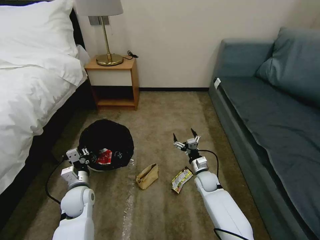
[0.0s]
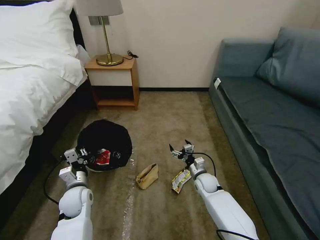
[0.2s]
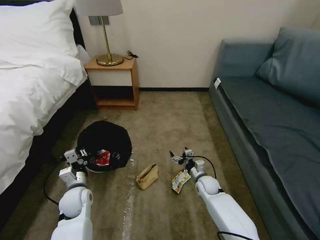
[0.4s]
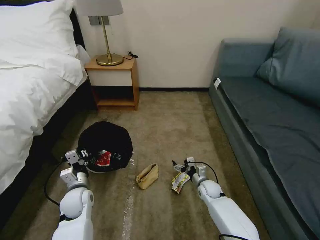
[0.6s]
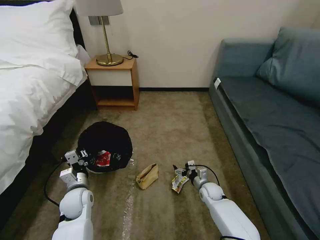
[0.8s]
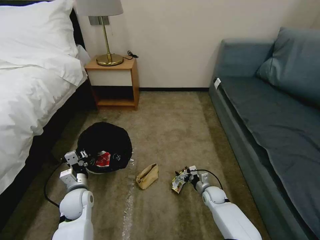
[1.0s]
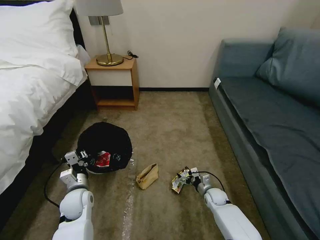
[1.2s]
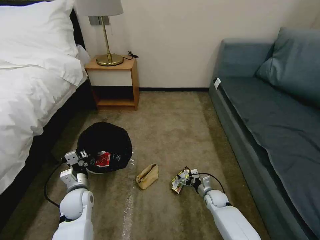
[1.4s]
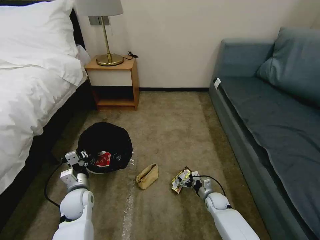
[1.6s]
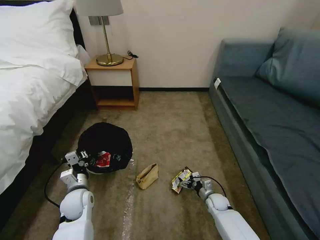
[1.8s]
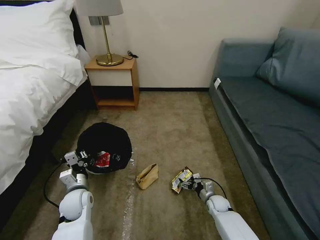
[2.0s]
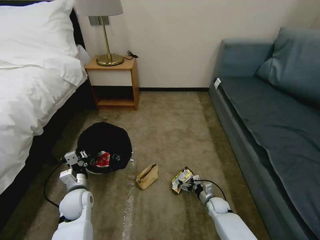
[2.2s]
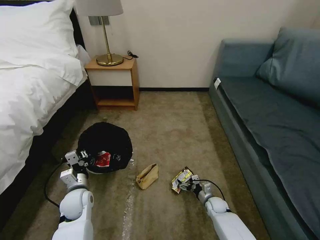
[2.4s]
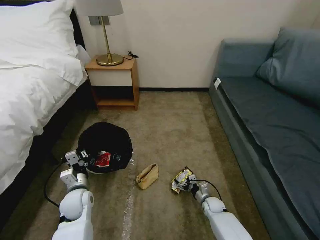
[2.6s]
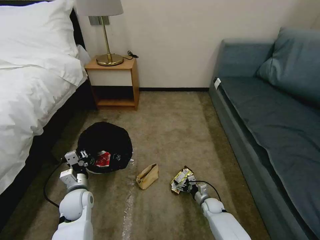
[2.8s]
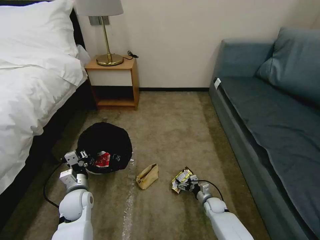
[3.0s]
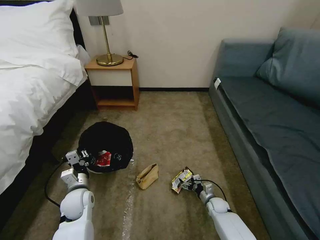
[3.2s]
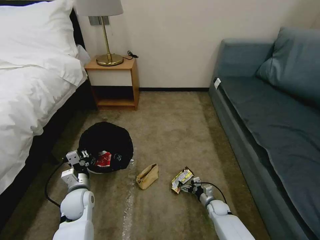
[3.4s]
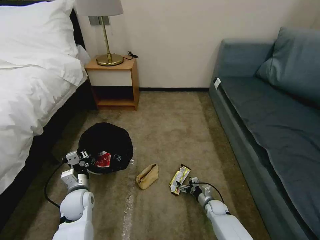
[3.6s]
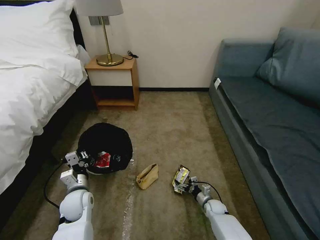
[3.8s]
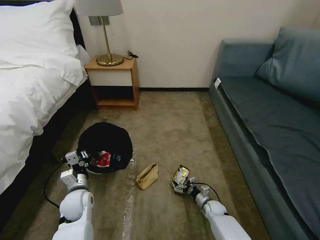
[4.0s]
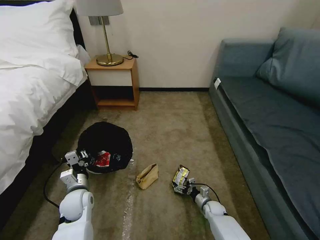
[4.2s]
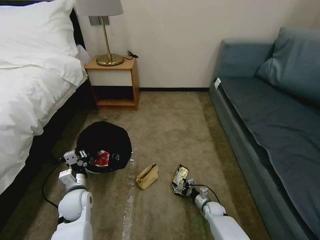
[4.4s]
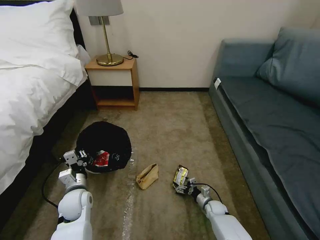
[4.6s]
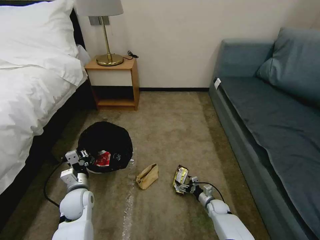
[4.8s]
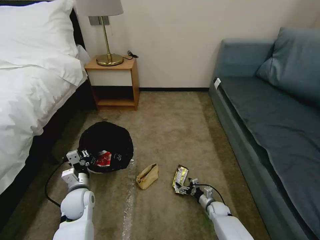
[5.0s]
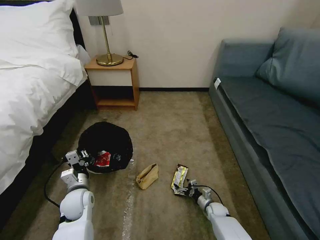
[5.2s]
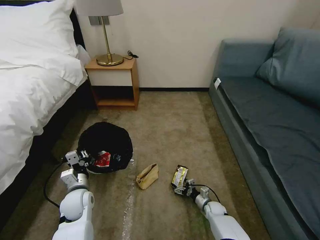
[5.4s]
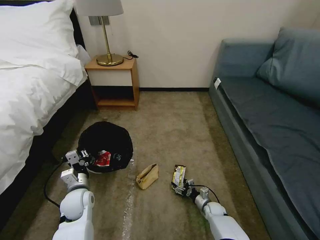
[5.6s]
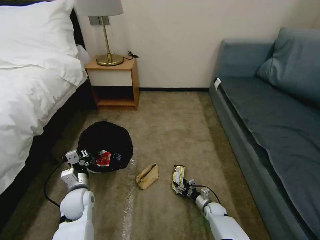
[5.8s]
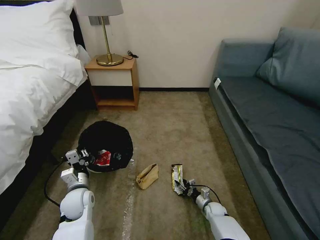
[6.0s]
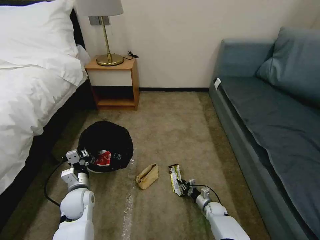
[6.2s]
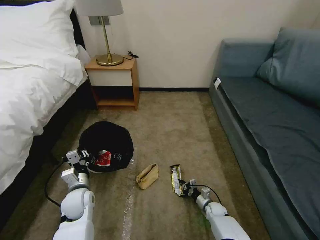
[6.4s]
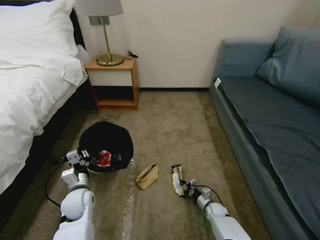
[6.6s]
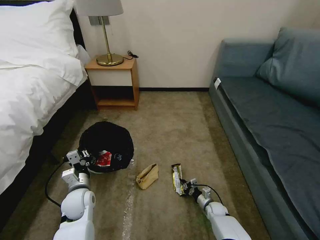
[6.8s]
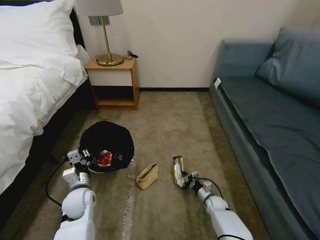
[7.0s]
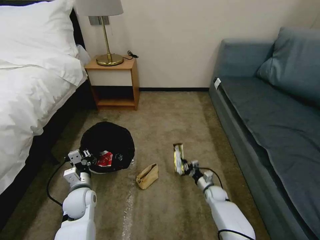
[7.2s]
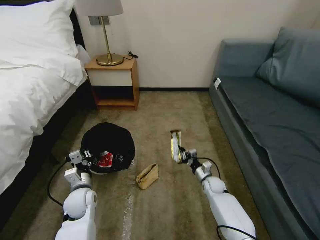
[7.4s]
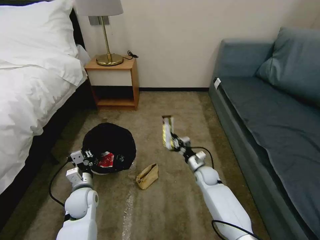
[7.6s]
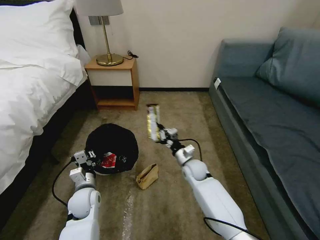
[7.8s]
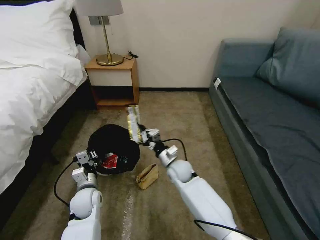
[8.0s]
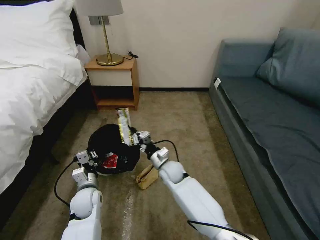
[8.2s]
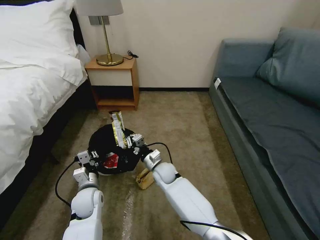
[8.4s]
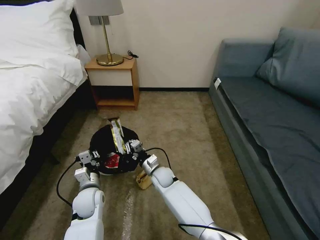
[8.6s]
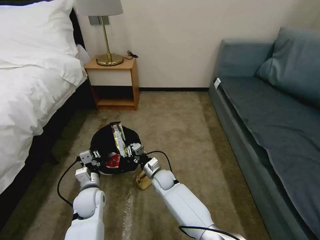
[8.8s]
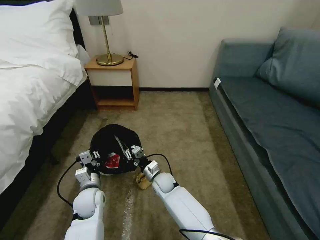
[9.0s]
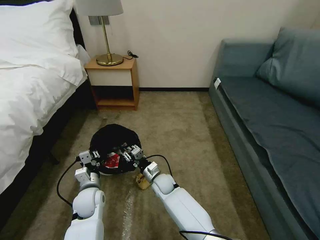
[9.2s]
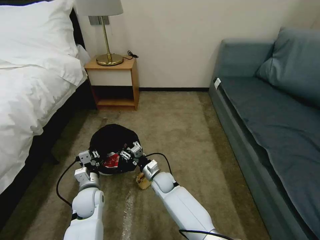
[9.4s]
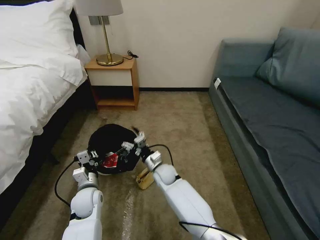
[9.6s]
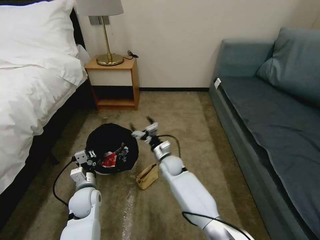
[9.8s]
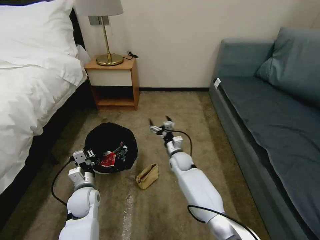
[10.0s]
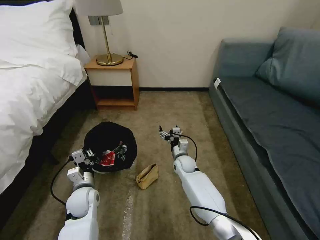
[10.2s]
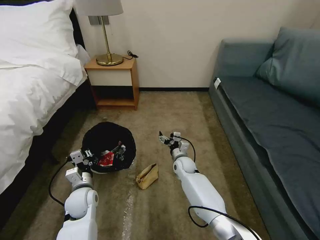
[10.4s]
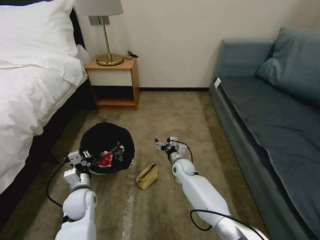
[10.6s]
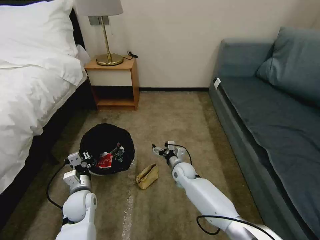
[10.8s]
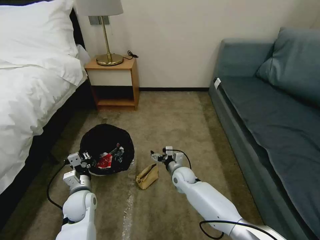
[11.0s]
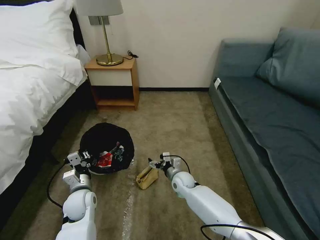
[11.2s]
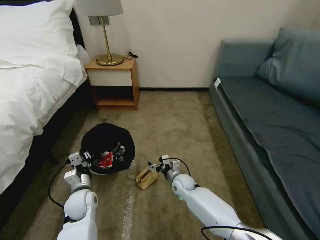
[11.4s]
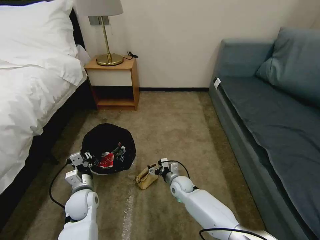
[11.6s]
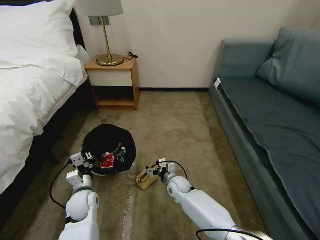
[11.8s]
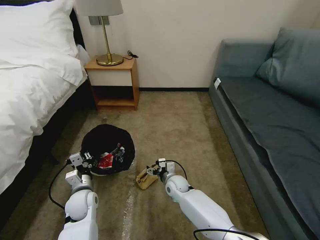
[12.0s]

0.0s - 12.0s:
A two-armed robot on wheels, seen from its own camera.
Task of the whole recording: Pick up the trash bin, then pick up the garbage on the floor and place it into the trash bin.
0.0s - 1.6s: The right gripper travels downward, to the right and backward by some 15 cm.
1.6s - 3.0s: There are only small adjustments of the grippers.
3.0s - 4.4s: There are only small adjustments of the grippers.
4.4s - 6.0s: The right gripper closes its fingers.
6.0s - 7.6s: The right gripper heads upward and forward, covering approximately 20 cm, and closes its fingers.
7.6s - 9.0s: The right gripper moves to the left, roughly 20 cm.
9.0s - 10.4s: The right gripper travels to the right and forward by approximately 10 cm, and opens.
10.4s - 12.0s: The right gripper goes some 10 cm backward.

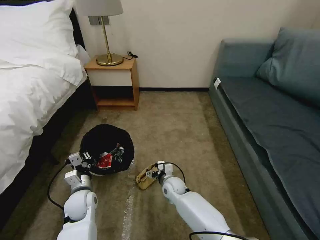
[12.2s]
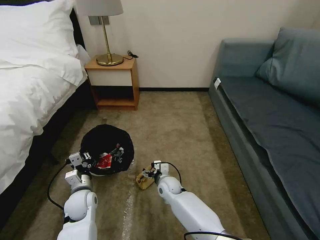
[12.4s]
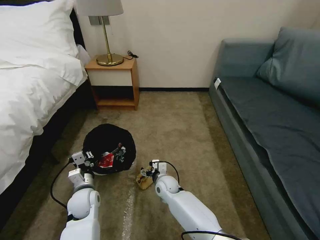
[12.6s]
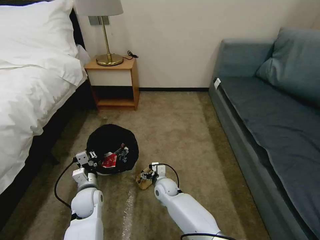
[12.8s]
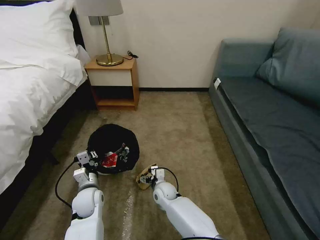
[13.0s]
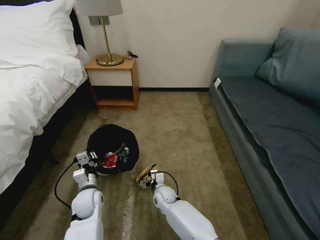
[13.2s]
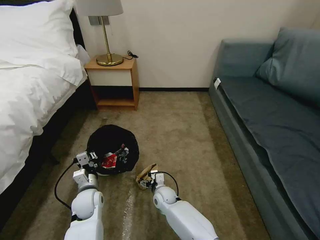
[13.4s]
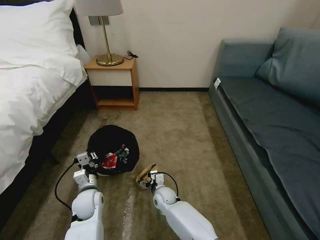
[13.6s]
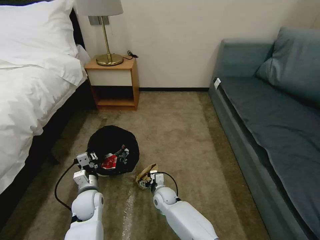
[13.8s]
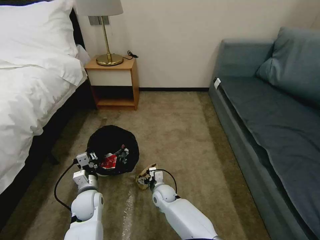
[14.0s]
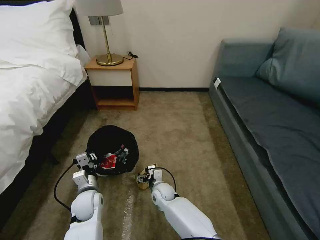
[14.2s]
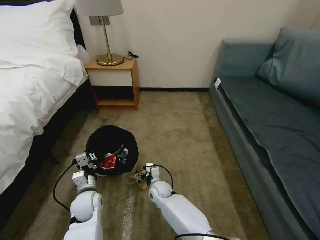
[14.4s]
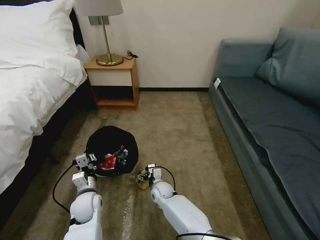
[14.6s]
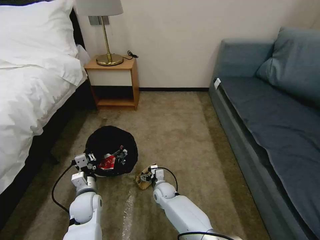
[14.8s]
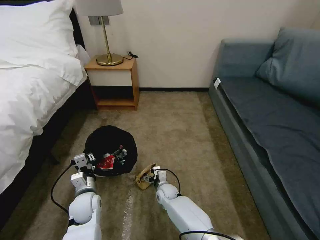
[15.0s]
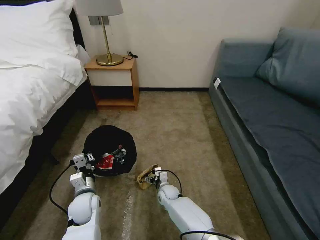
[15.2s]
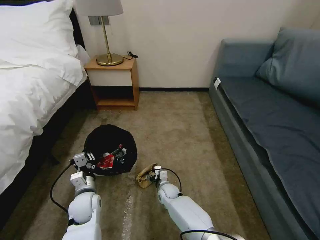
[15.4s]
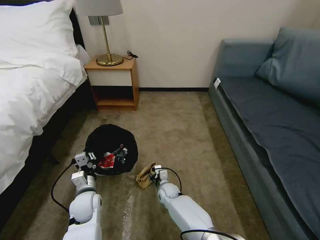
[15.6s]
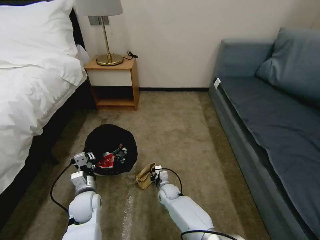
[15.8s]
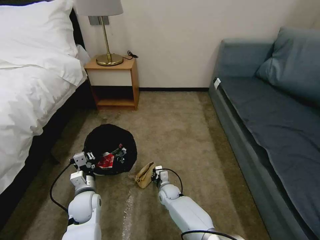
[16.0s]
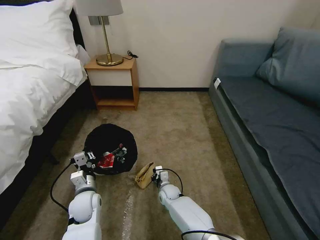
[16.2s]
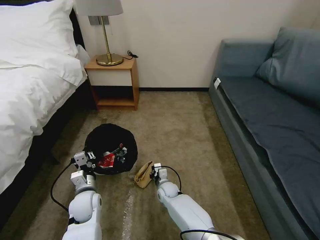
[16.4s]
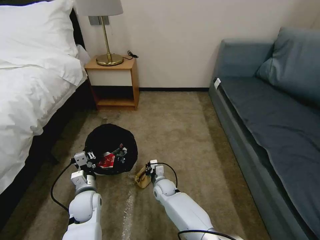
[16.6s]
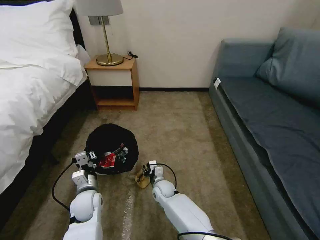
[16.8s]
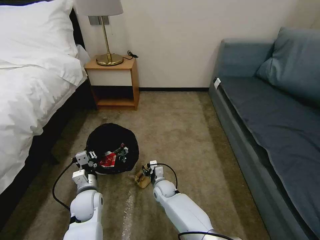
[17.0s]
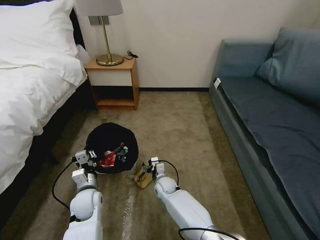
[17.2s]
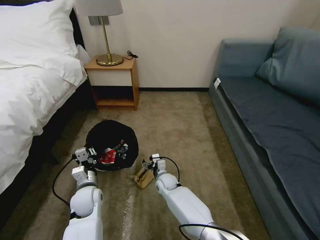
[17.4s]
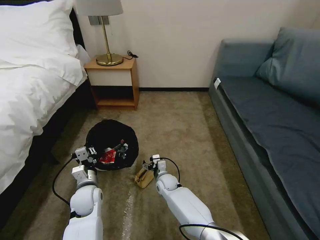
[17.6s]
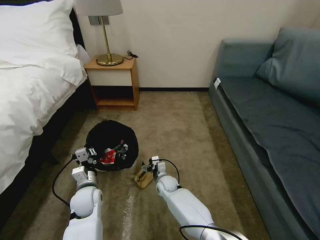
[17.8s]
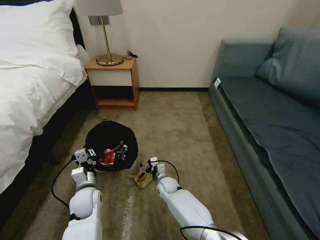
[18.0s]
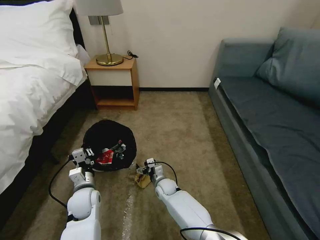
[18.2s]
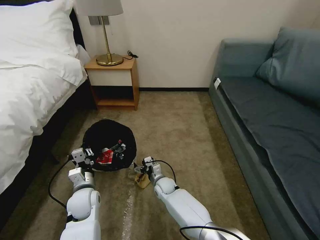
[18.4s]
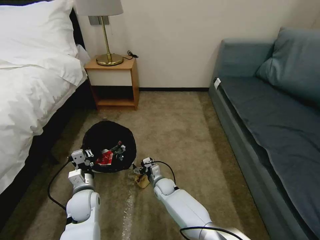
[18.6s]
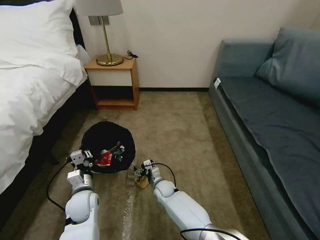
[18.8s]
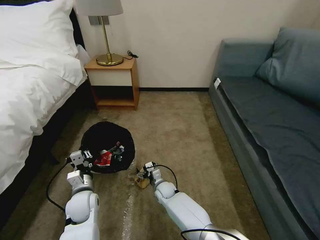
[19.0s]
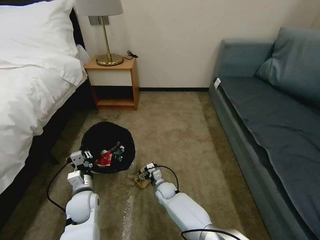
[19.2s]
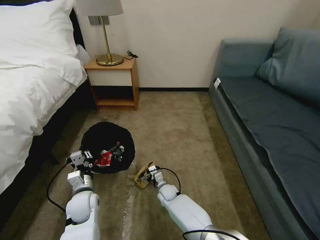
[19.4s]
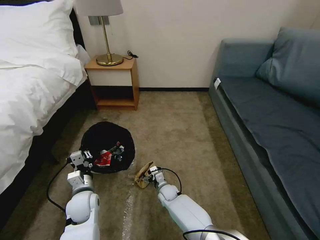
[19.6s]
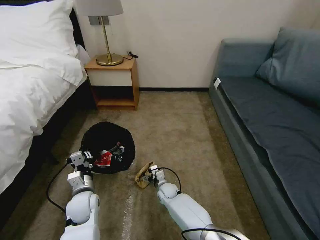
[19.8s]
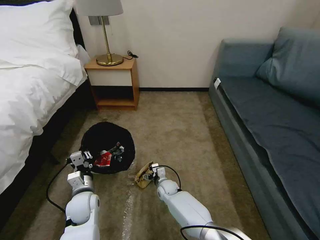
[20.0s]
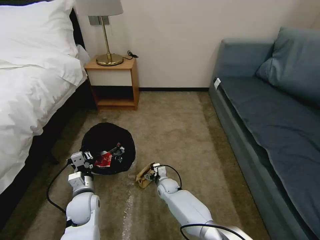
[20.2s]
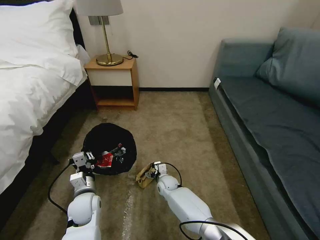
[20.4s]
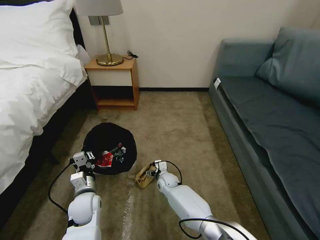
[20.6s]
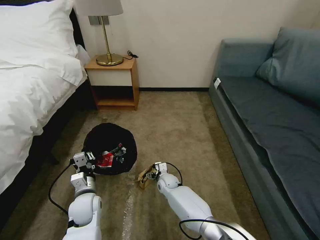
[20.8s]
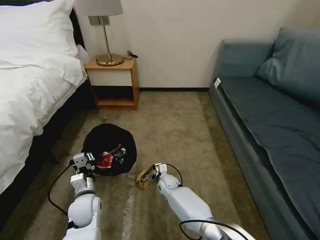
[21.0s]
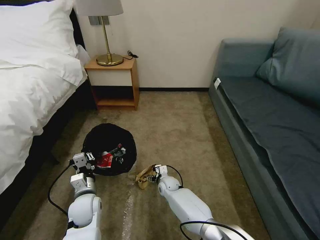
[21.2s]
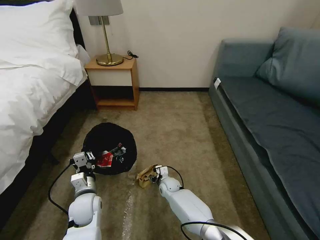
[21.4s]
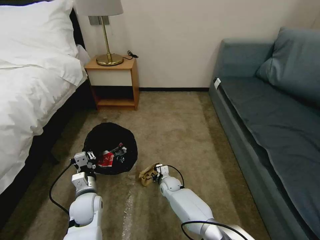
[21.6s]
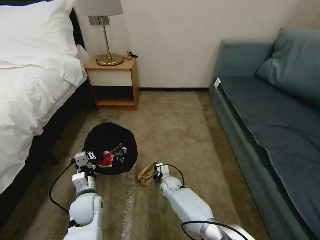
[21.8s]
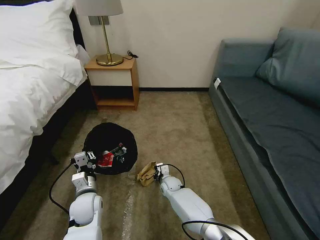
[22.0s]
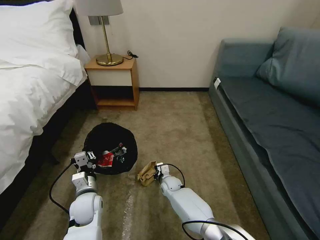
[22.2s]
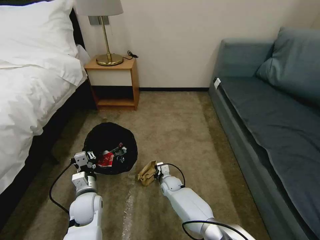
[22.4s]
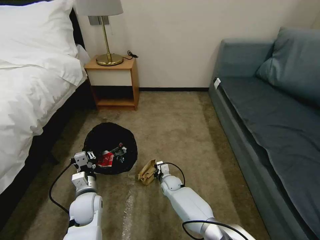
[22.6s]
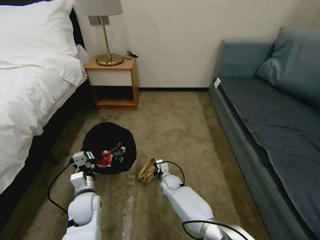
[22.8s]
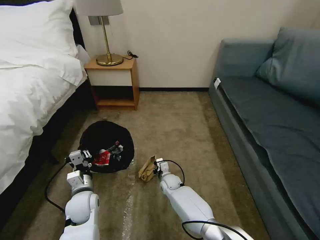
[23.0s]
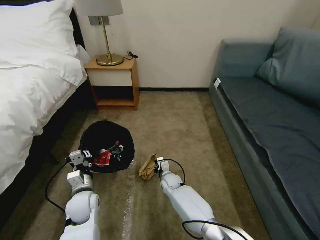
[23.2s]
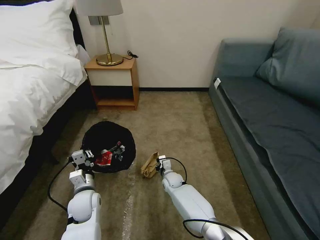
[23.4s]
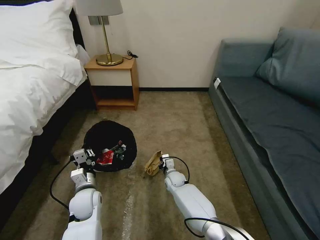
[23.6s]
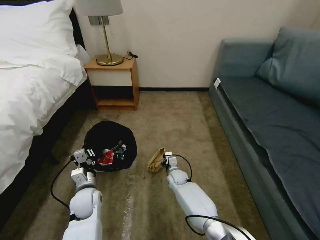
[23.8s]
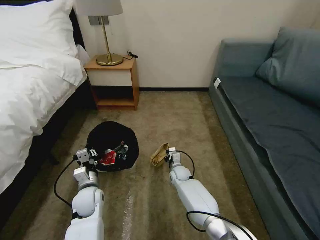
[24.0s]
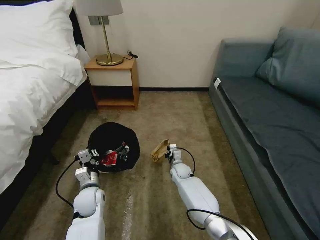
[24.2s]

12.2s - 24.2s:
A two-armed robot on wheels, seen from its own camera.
Task of the whole recording: Pick up the trash bin, then pick up the garbage on the floor and place it into the trash bin.
12.2s - 13.8s: The right gripper moves some 5 cm.
13.8s - 15.2s: The grippers make only small movements.
15.2s - 16.6s: The right gripper closes.
16.6s - 18.2s: The right gripper opens up.
18.2s - 19.8s: The grippers make only small movements.
19.8s - 21.2s: There are only small adjustments of the grippers.
21.2s - 22.6s: The right gripper closes up.
22.6s - 24.2s: The right gripper moves approximately 5 cm.
